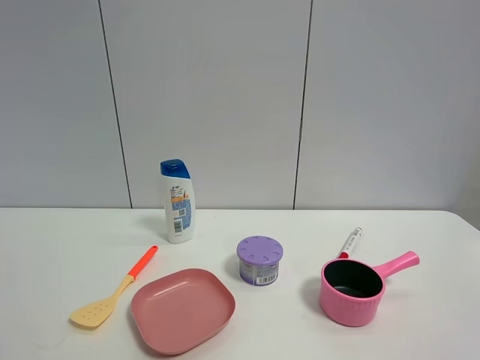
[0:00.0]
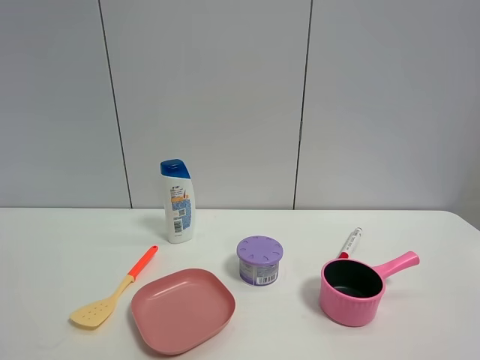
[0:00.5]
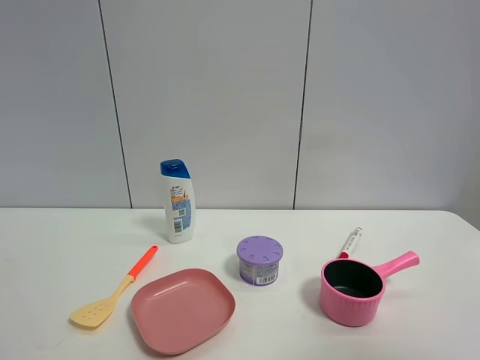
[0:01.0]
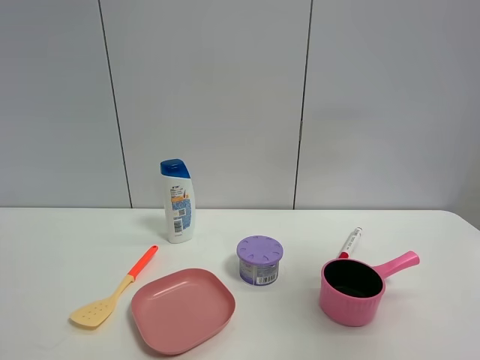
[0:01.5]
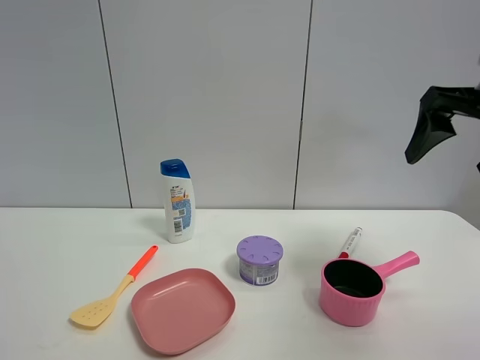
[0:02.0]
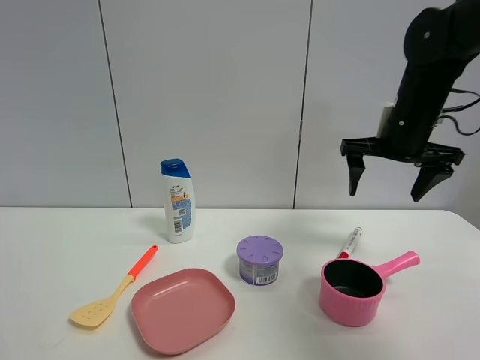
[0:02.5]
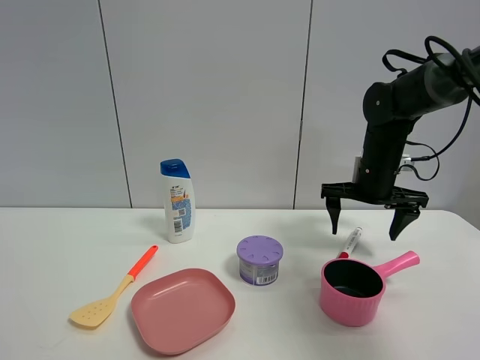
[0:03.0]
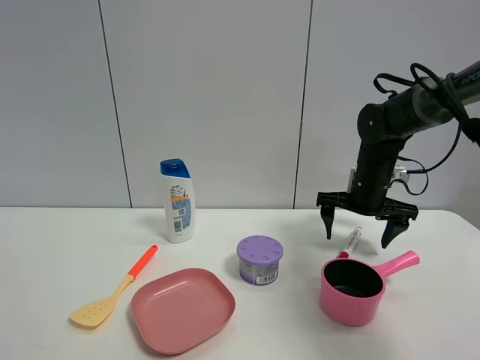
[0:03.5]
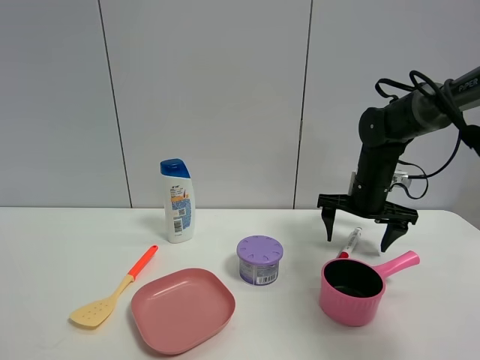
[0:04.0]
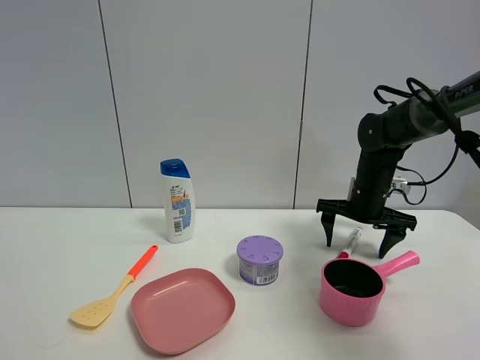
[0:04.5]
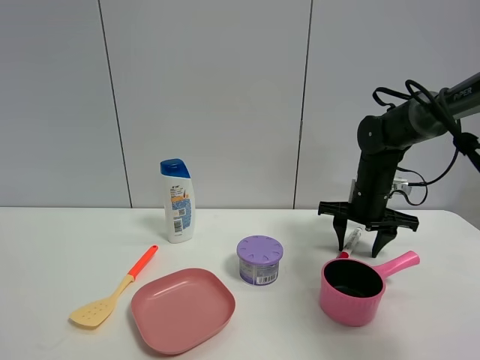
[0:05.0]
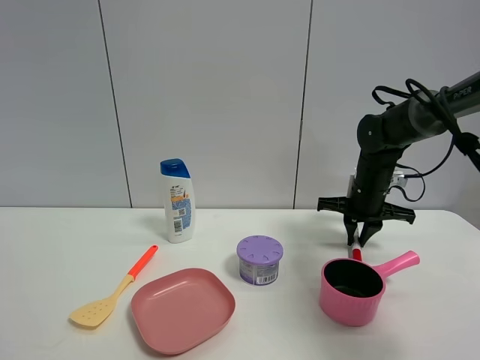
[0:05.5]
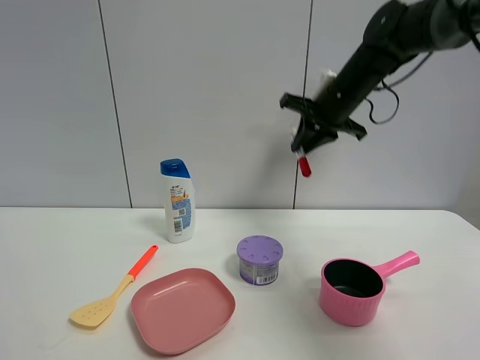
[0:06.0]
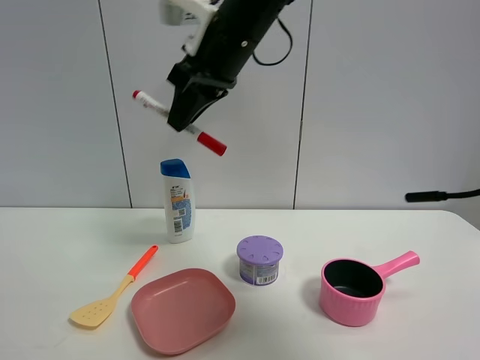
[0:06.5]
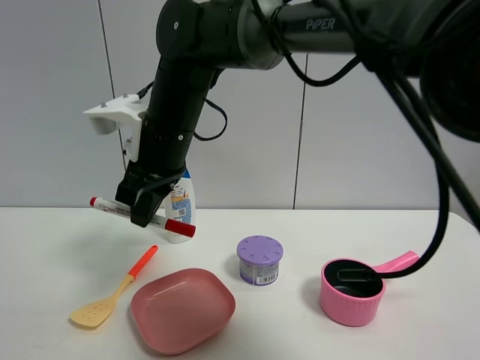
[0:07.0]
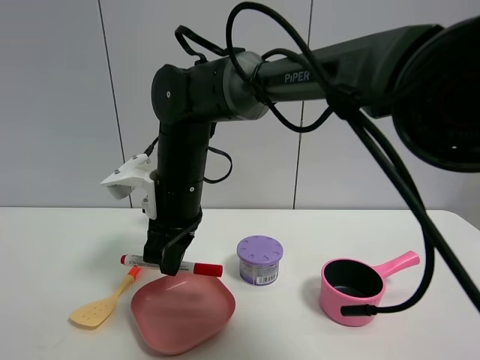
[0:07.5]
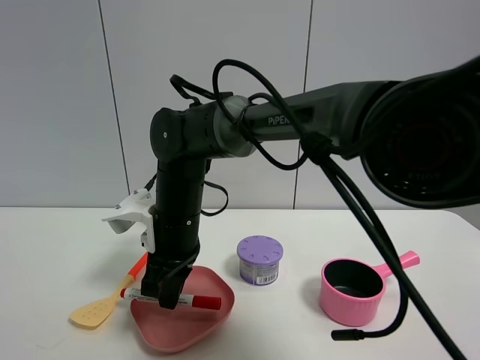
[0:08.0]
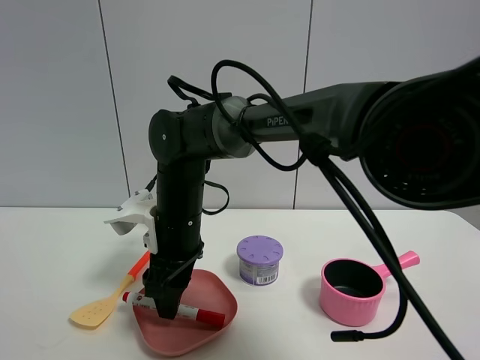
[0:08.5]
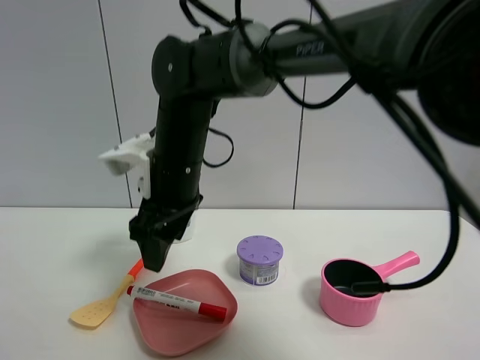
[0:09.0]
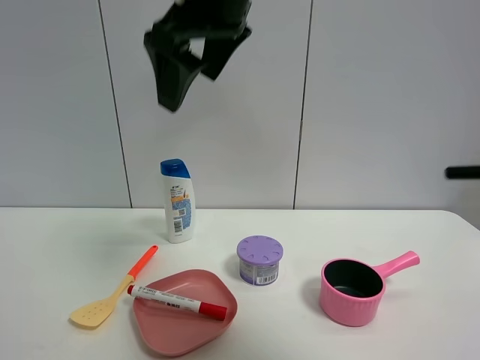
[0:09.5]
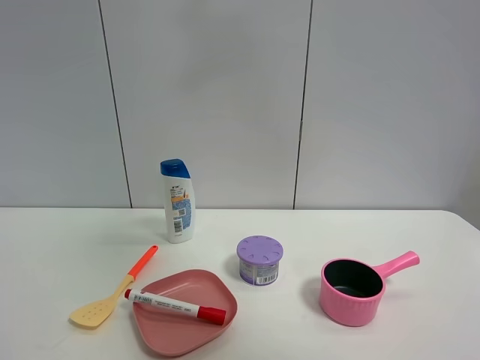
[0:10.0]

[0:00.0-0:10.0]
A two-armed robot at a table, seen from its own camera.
Task of the whole recording: the gripper move the object.
Step, 0:00.0 to 0:05.0: Grasp the red marker pen with the right gripper.
Step, 0:05.5 to 0:08.5: Place the red marker pen into the pink plate with the right gripper.
0:02.0 to 0:04.0: The right gripper goes roughly 25 cm forward and downward.
0:04.0 to 0:06.0: The right gripper moves upward, about 10 cm, and closes.
0:06.0 to 0:08.0: The right gripper shifts approximately 30 cm to the left and backward.
0:08.0 to 0:10.0: The right gripper moves upward, about 35 cm, and opens its fingers.

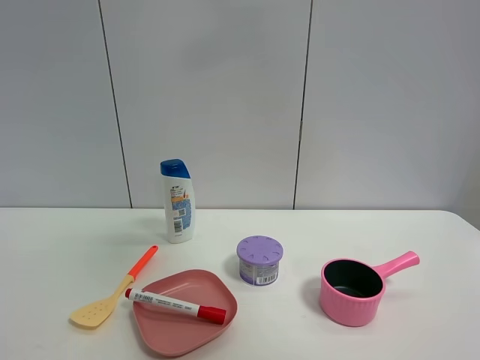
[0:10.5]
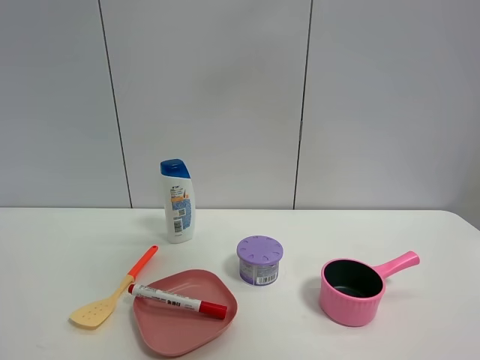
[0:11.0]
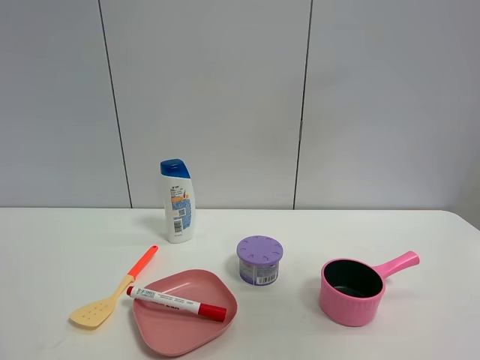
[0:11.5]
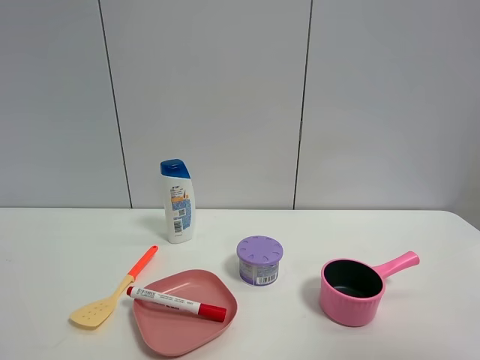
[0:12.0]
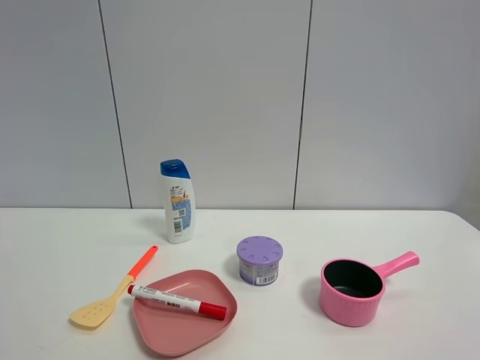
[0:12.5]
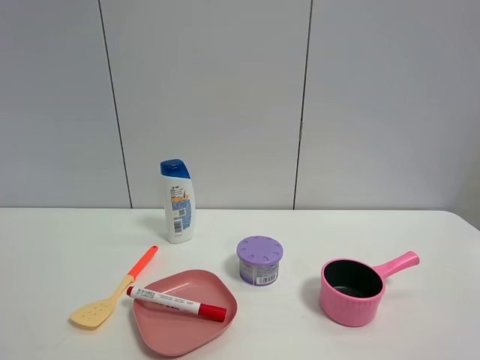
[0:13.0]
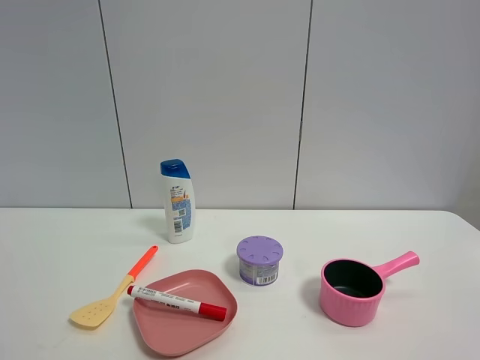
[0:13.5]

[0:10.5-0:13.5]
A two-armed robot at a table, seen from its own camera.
Task of the whole recording: the gripper move the object.
0:10.5 to 0:12.0: The right gripper is displaced to the right, backward and downward by roughly 30 cm.
0:12.0 to 0:13.5: The right gripper heads downward, covering some 10 cm.

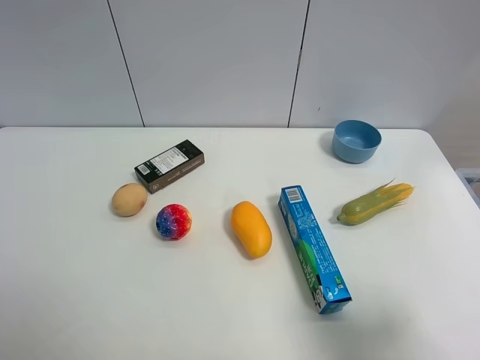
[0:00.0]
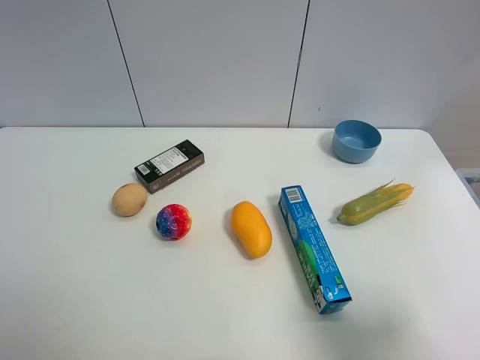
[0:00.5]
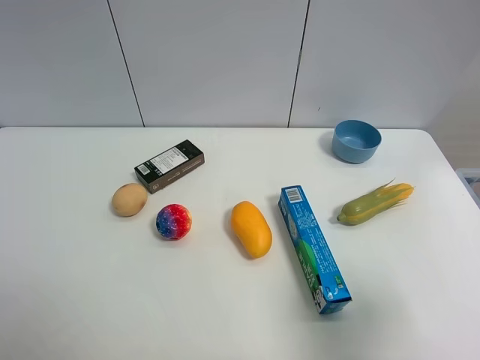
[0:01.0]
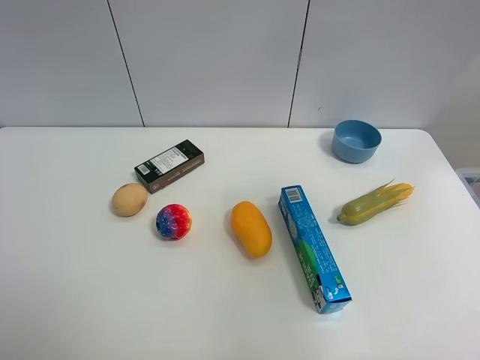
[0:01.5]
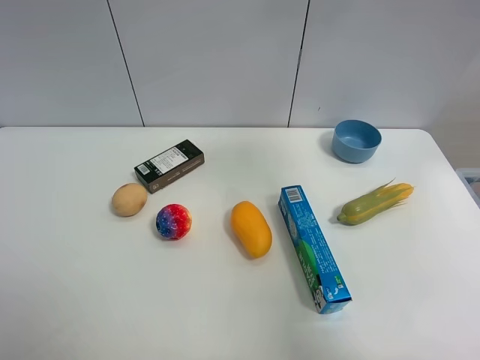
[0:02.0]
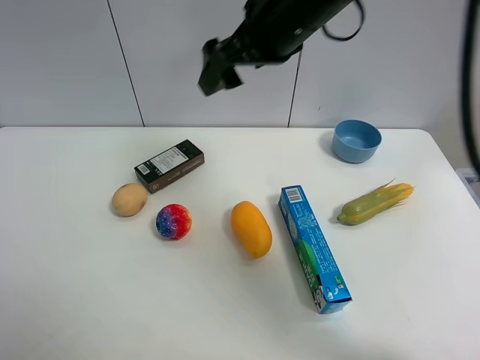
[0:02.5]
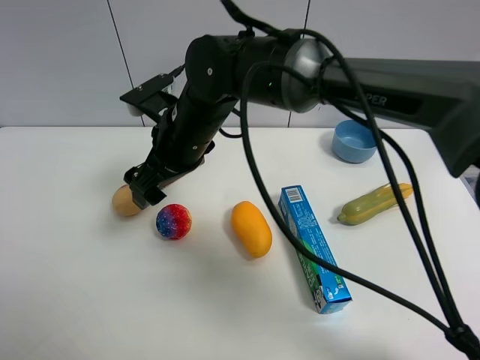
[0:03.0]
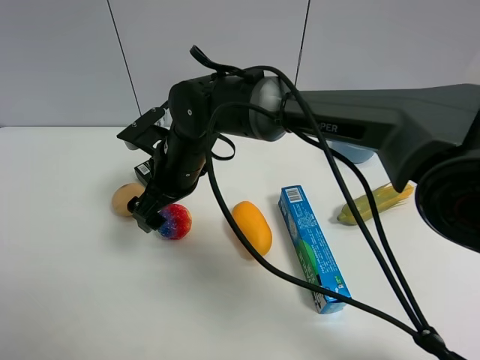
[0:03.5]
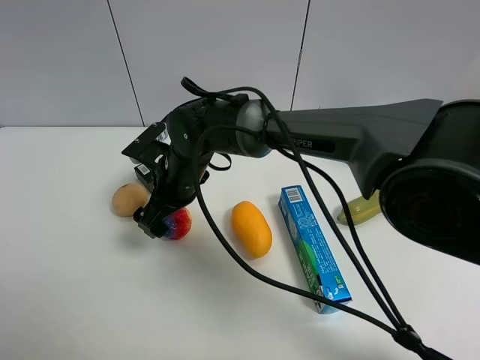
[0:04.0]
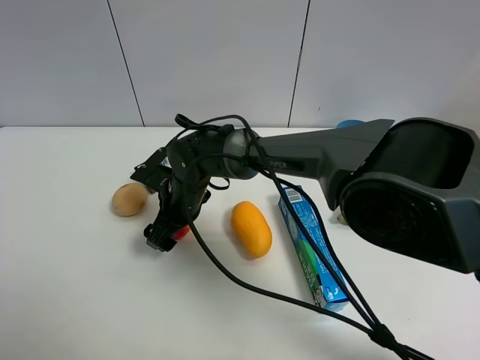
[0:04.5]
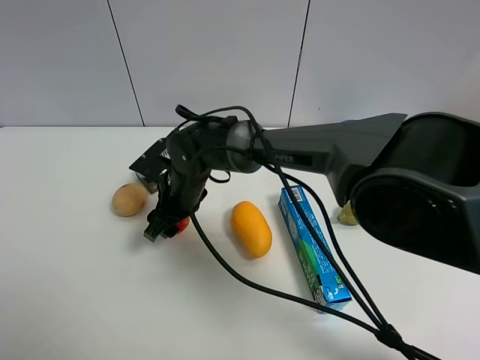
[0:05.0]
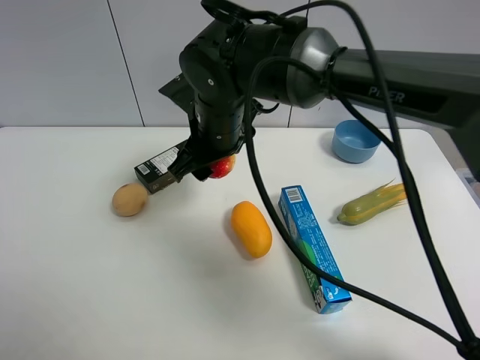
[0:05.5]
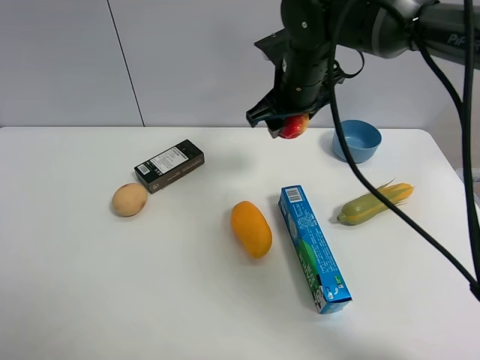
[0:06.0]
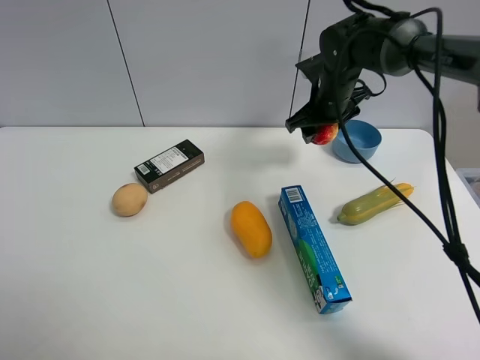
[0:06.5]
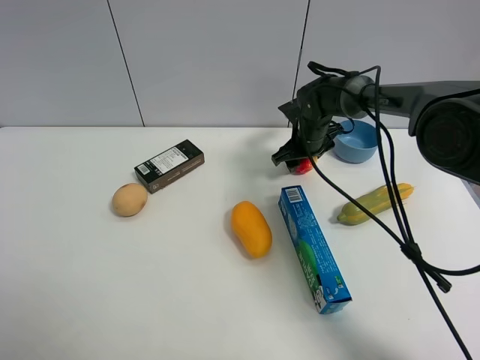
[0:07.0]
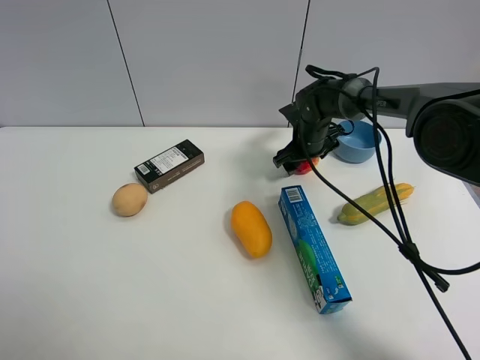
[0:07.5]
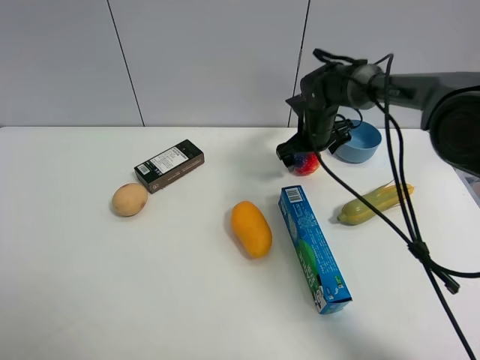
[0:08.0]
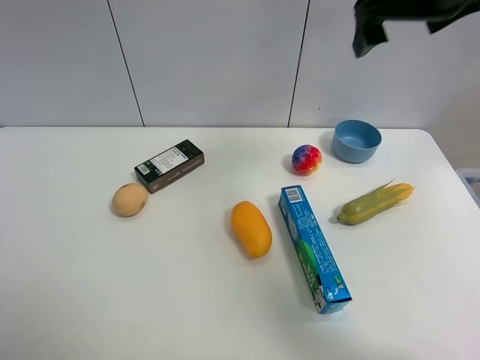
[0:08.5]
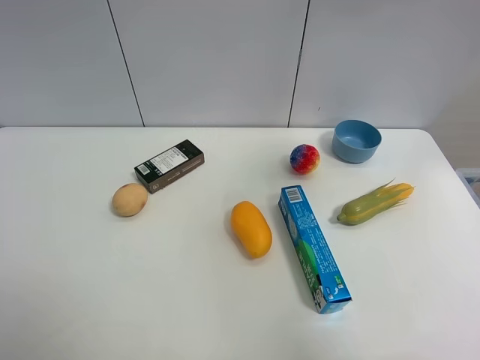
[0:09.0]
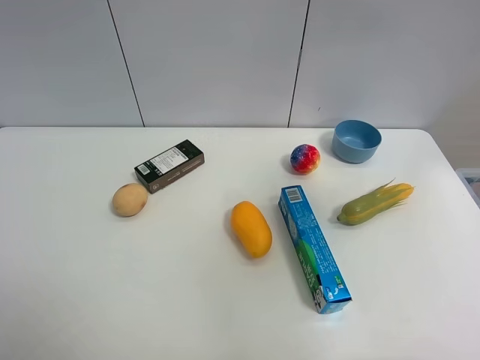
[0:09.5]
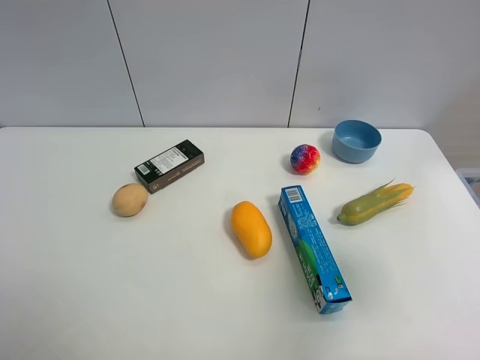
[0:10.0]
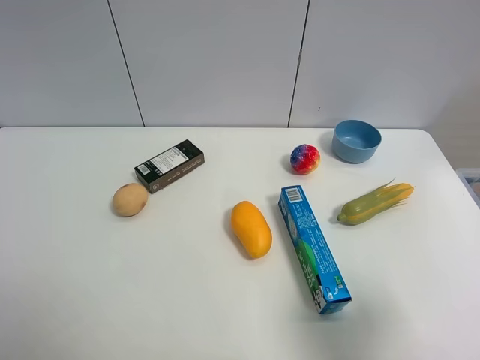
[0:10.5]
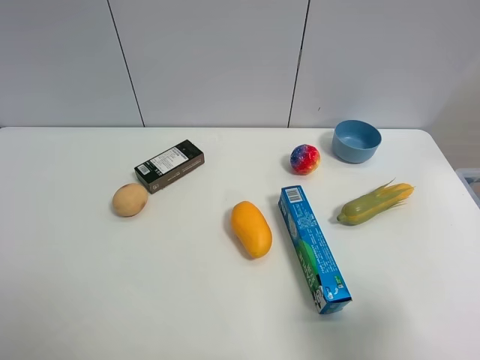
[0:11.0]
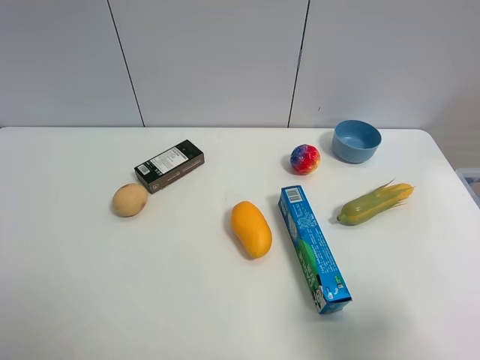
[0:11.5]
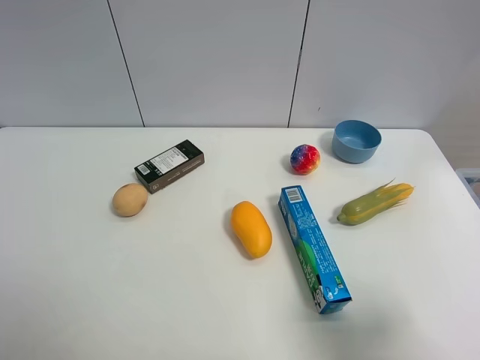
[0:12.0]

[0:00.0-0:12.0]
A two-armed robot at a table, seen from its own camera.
Task of the whole recording: the gripper move the object.
Step, 0:00.0 to 0:04.5: Grasp the colorful ball with the right gripper.
Step, 0:05.0 to 0:08.0: Place the colorful ball on the table with the right gripper.
0:00.0 to 0:02.0: The right gripper shifts some 35 cm forward and upward.
0:02.0 to 0:04.0: The right gripper heads to the left and downward, covering roughly 50 cm.
0:04.0 to 0:06.0: The right gripper is displaced to the right, upward and forward by approximately 20 cm, and closes.
0:06.0 to 0:08.0: The right gripper shifts about 15 cm downward, forward and to the right, and opens.
0:08.0 to 0:10.0: The right gripper shifts roughly 40 cm backward and upward.
0:10.0 to 0:12.0: The right gripper heads downward and backward, covering approximately 10 cm.
